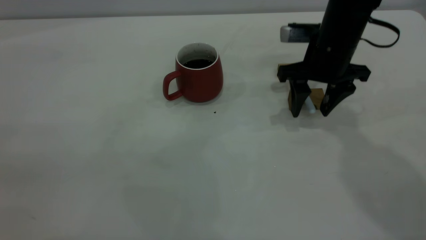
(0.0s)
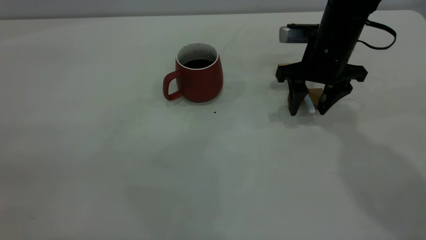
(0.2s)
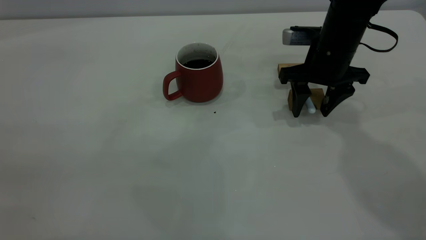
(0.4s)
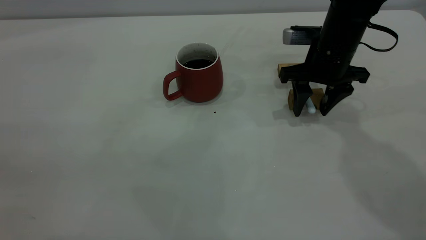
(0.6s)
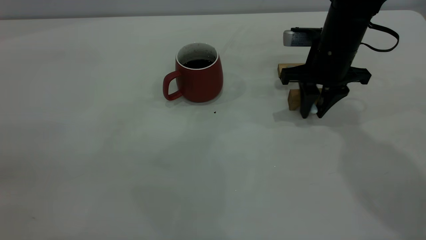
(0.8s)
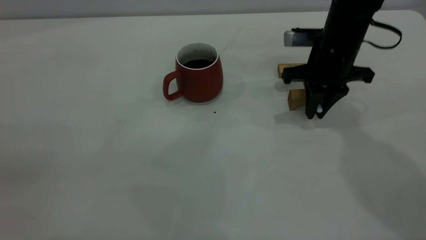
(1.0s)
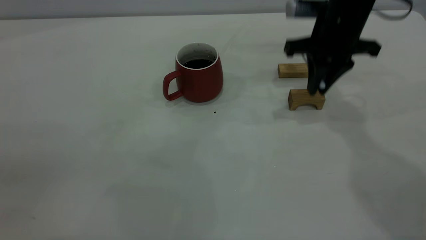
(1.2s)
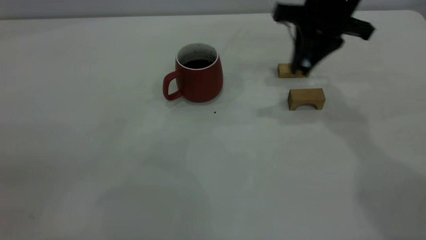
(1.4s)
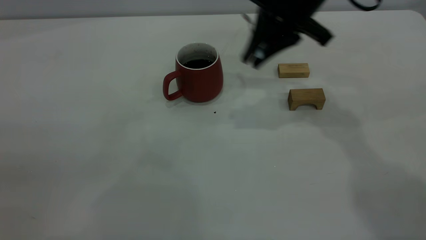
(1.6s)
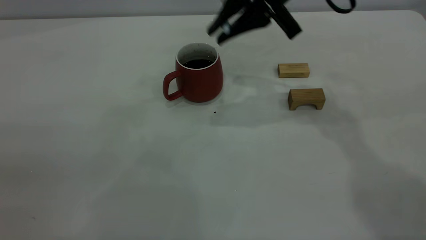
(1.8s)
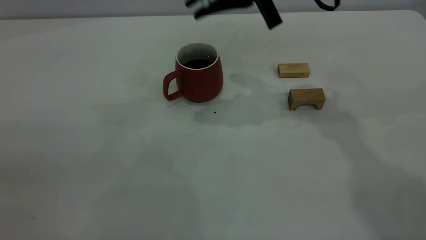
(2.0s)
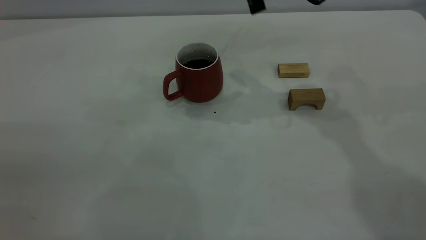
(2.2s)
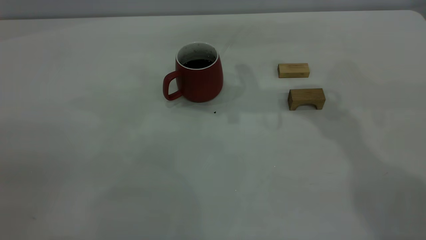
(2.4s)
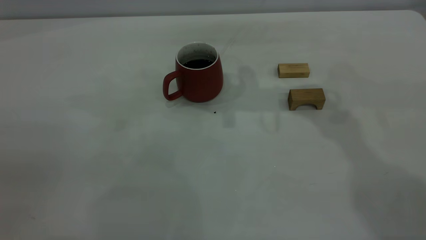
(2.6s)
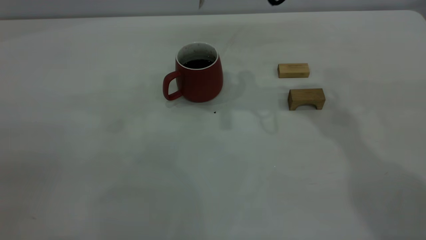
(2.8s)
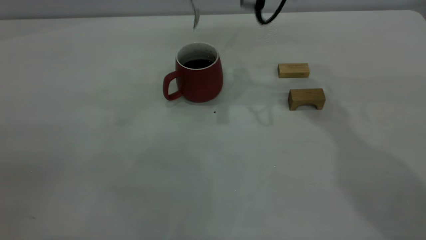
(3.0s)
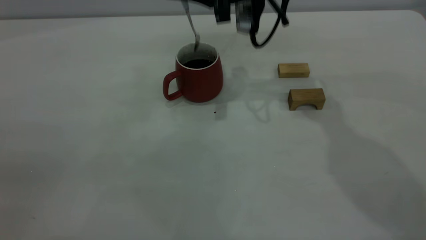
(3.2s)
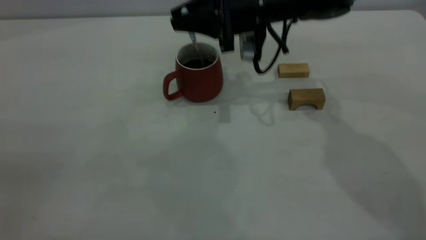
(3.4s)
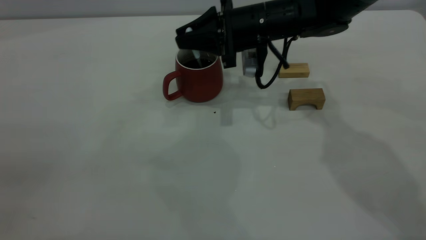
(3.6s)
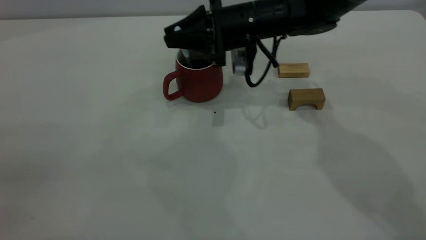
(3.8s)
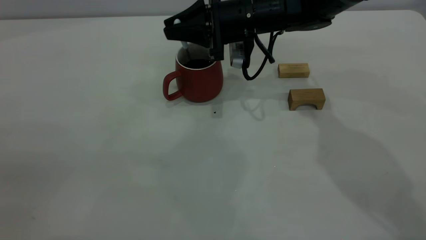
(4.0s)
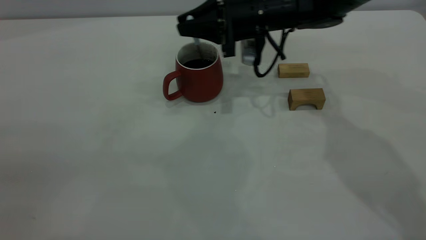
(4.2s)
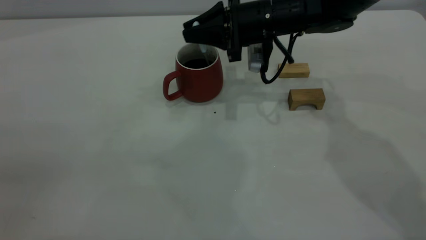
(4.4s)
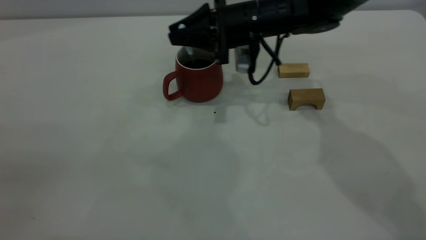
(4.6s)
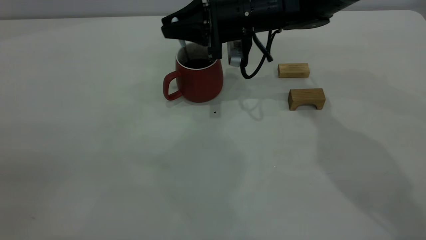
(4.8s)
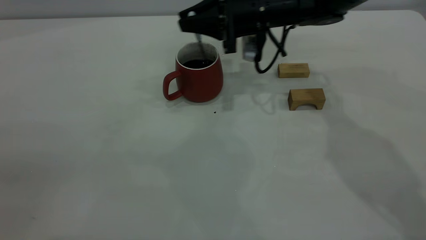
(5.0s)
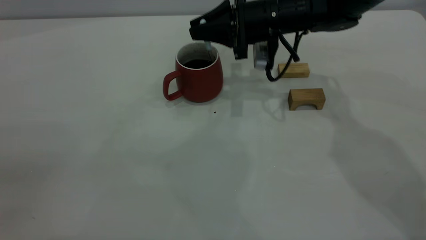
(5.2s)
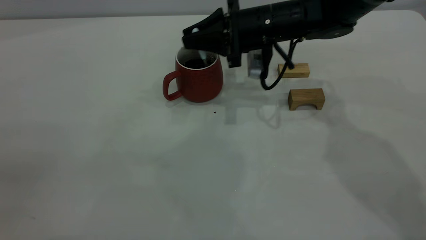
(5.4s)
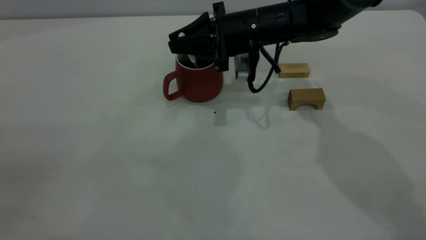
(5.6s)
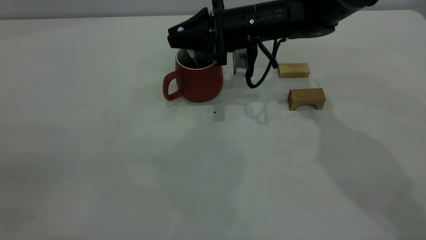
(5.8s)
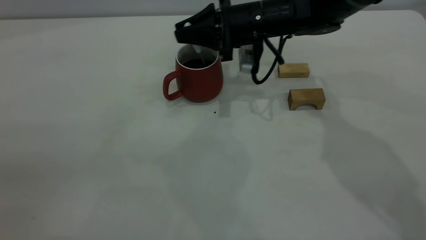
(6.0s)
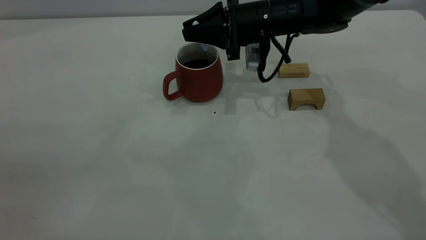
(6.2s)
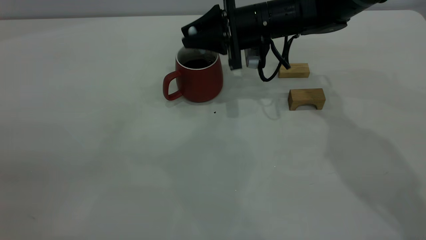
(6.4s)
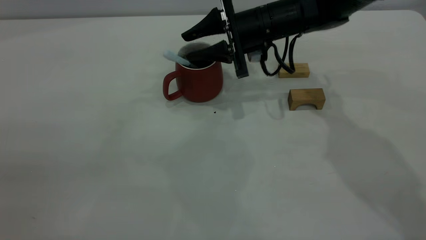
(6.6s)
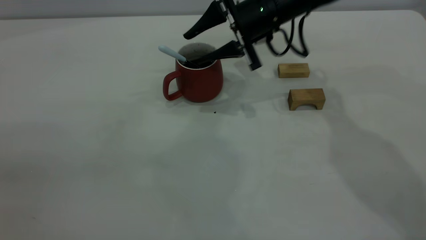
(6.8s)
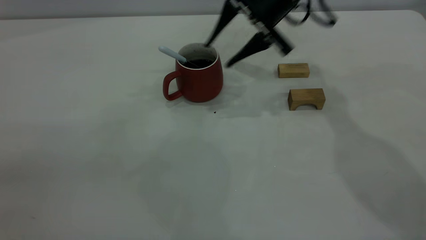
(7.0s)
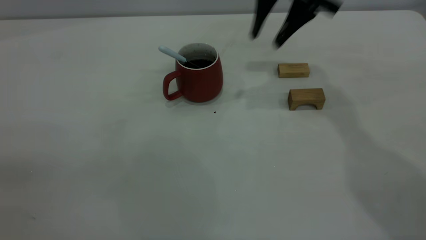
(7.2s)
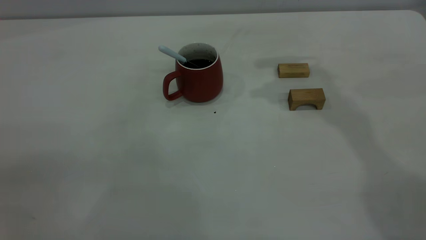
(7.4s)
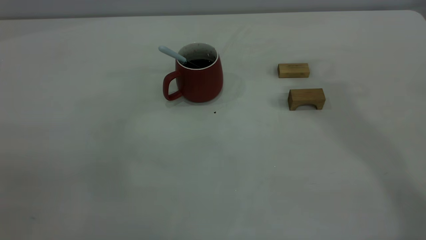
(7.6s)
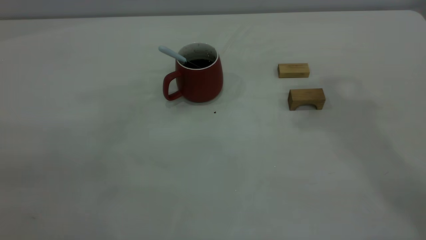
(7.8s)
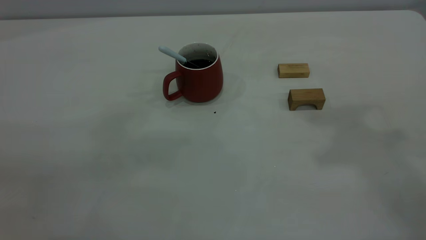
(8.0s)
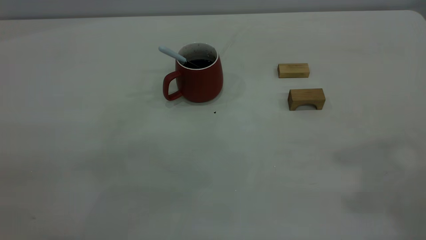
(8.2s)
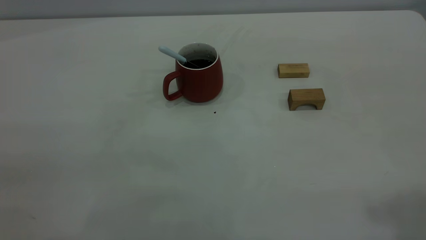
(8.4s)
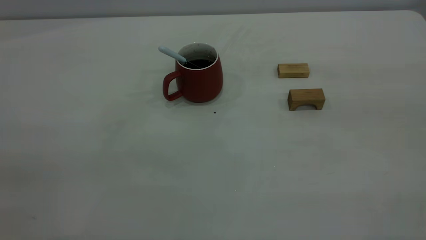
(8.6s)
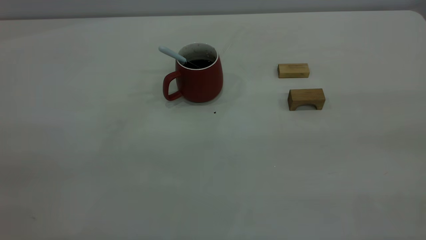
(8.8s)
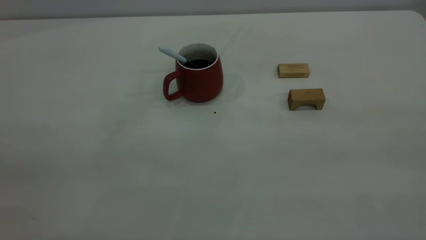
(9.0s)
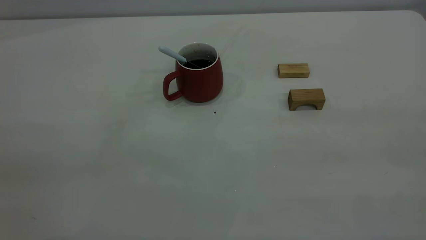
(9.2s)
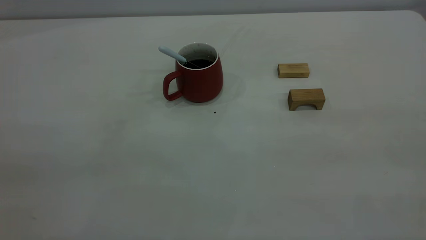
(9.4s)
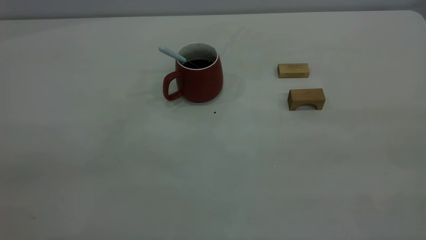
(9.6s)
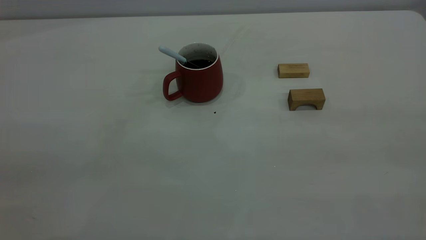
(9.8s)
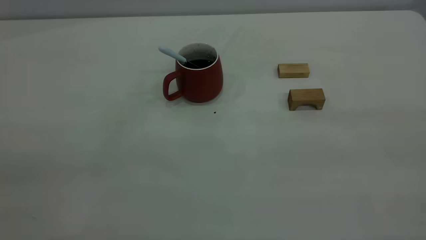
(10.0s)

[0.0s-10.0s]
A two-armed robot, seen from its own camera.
Step, 1.4s to 6.6s: Stir the coffee in the cup.
0.0s to 1.4s: The right gripper goes some 10 cm upward, and closes up.
1.4s to 2.8s: The right gripper is displaced to the left and upward by some 10 cm.
2.8s to 4.2s: The right gripper is displaced downward by roughly 15 cm.
4.2s to 5.8s: The grippers move only a little.
5.8s to 7.2s: The right gripper heads upward and to the right, covering roughly 15 cm, and opens its fingers.
7.2s to 8.6s: The right gripper travels backward and upward by roughly 40 cm, and closes up.

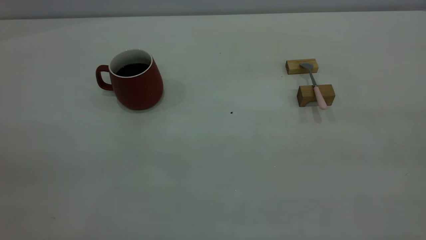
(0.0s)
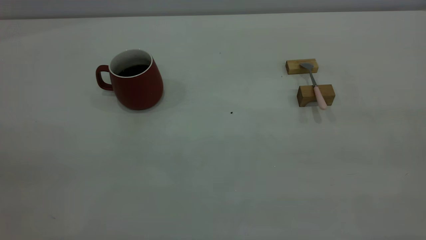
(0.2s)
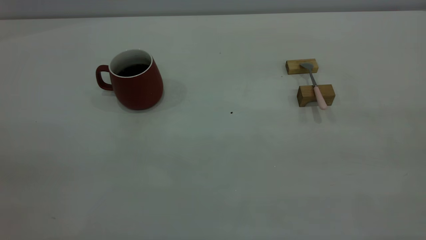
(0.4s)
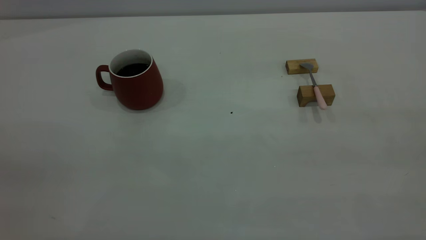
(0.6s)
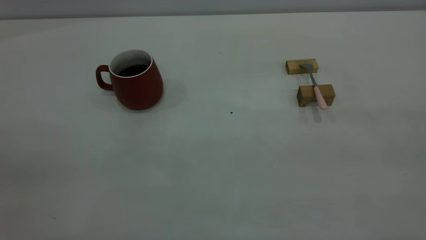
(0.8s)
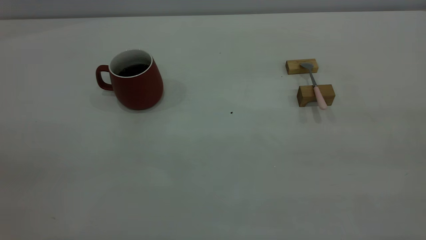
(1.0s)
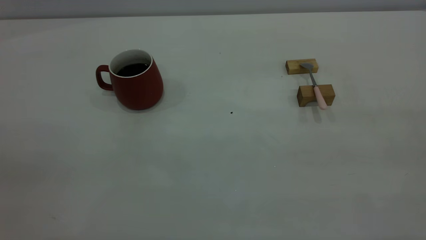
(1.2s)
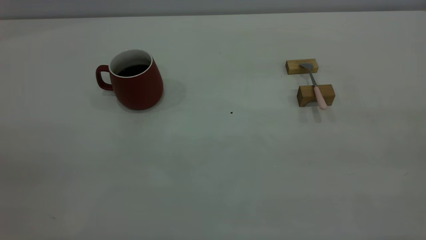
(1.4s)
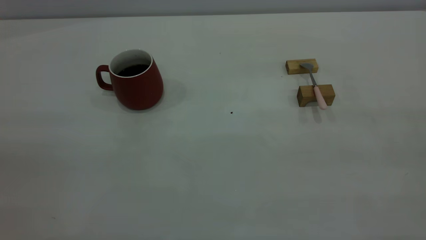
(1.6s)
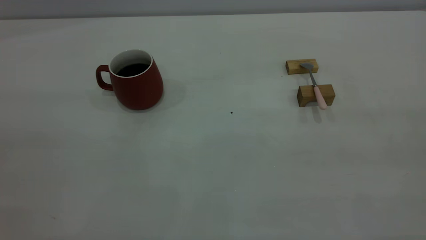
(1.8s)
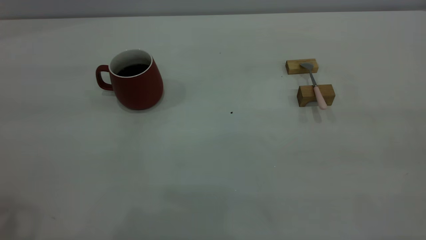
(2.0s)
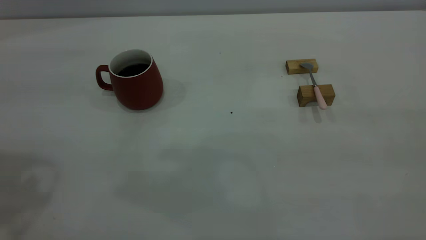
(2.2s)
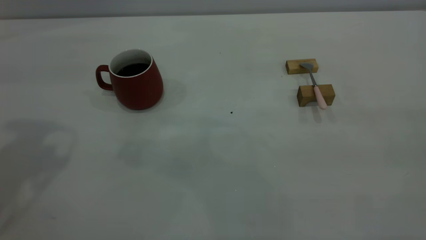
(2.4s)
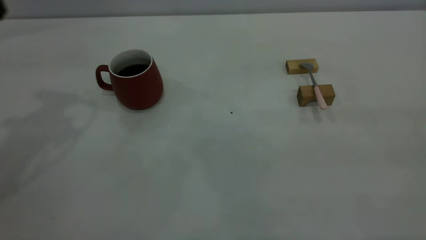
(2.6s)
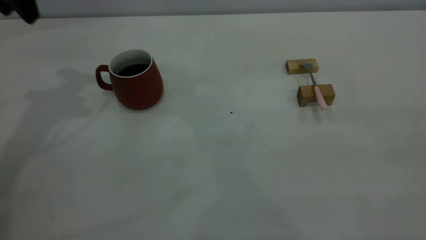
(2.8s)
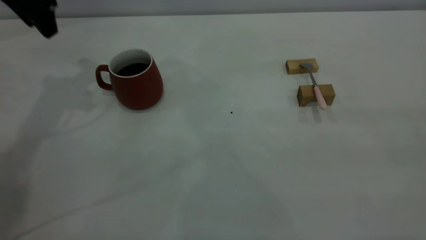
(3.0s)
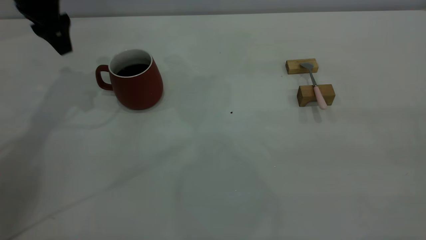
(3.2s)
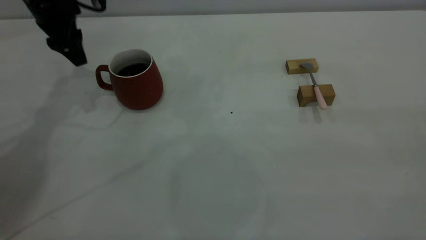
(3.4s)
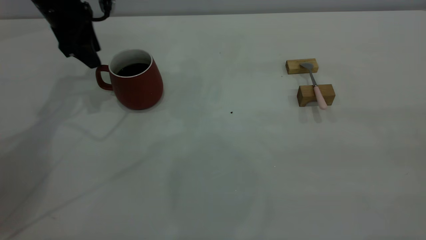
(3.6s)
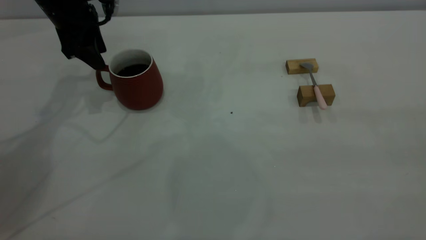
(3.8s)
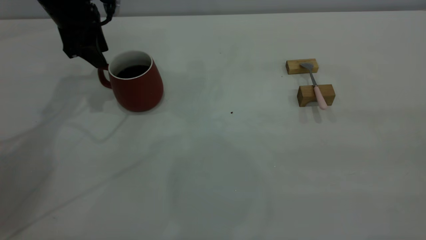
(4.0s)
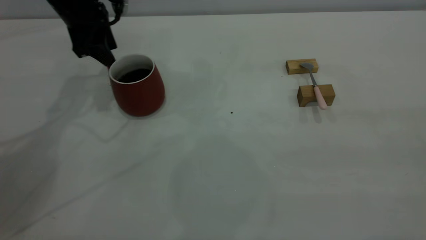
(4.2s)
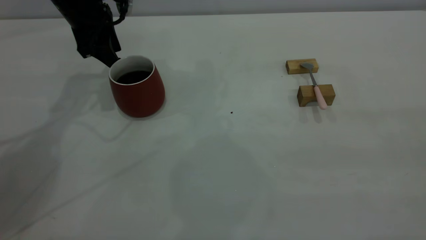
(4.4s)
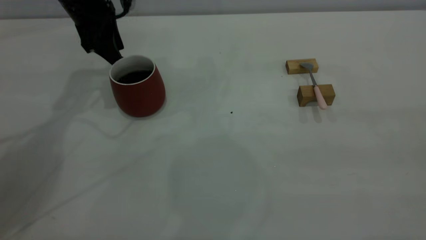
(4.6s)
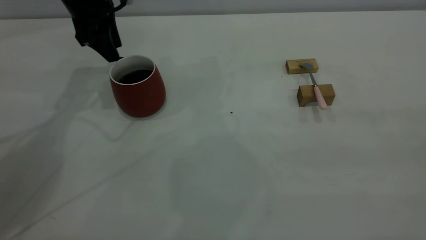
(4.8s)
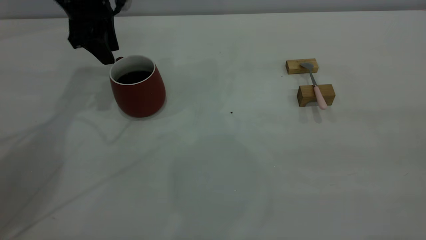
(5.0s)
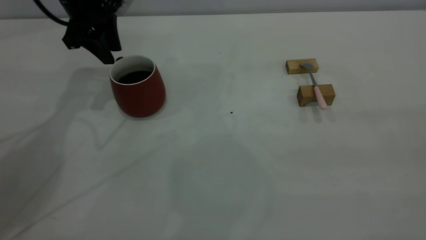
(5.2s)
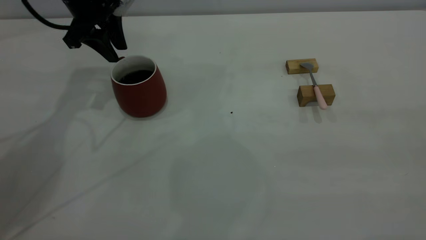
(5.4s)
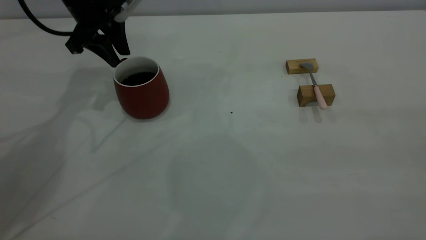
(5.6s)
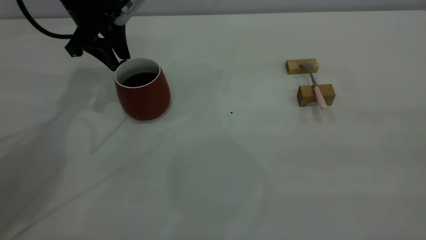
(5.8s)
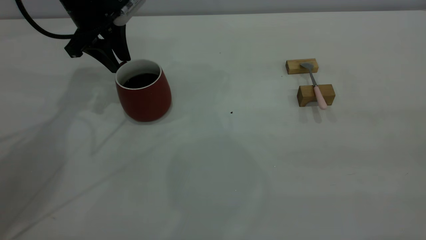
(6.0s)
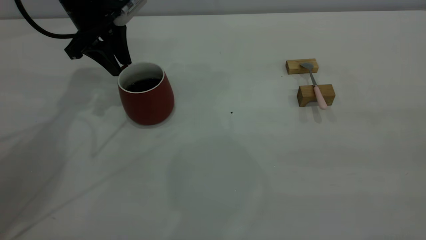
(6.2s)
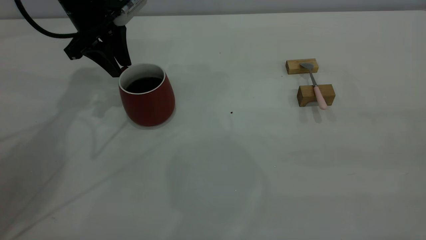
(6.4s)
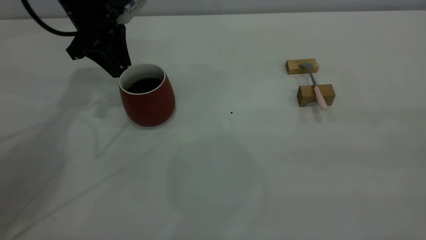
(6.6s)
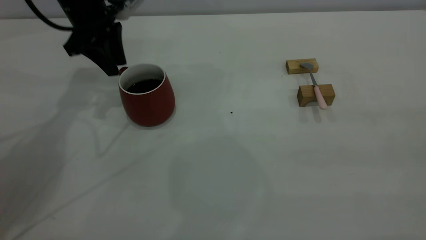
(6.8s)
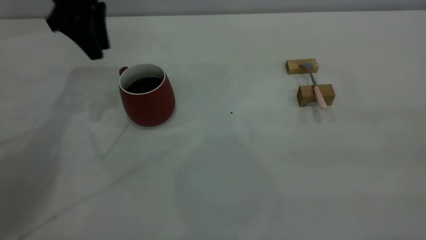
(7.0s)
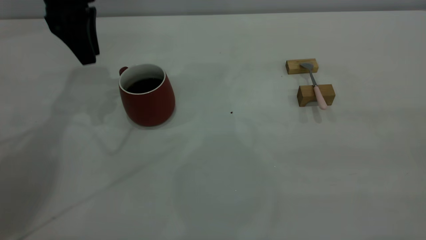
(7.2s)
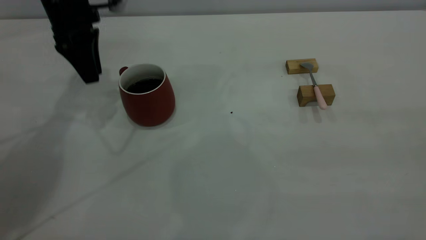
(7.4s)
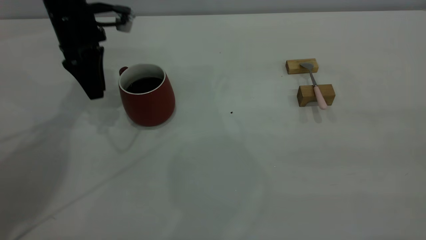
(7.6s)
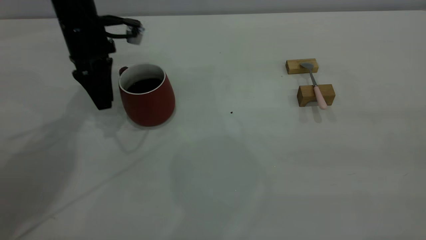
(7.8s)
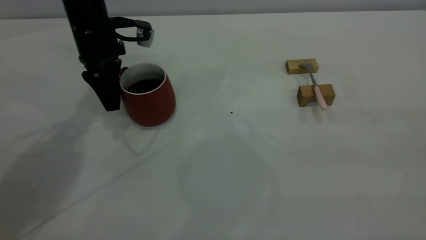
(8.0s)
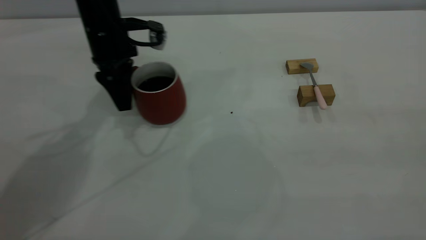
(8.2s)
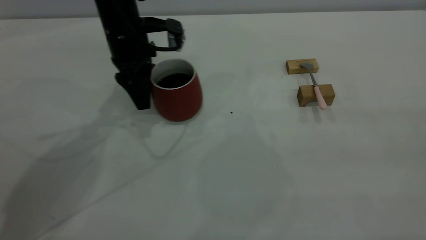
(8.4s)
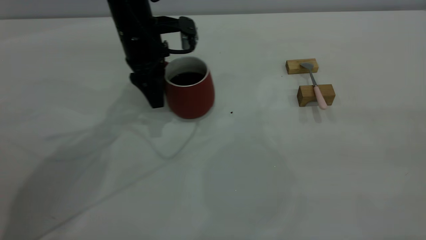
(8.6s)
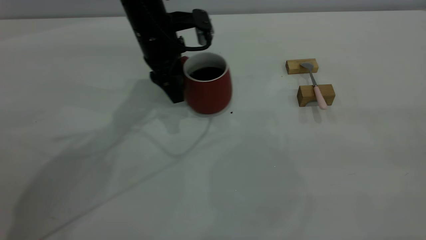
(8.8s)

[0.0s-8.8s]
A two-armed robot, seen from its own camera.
0.0s to 1.4s: Both grippers stay put.
1.4s to 3.0s: The left gripper goes roughly 40 cm forward.
3.0s to 4.4s: The left gripper heads downward, covering roughly 10 cm.
4.4s to 5.8s: The left gripper closes its fingers.
7.4s to 8.8s: The left gripper moves to the right, about 15 cm.
